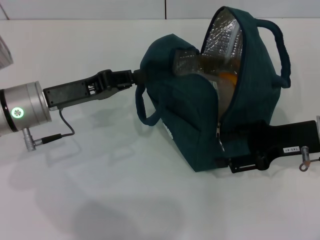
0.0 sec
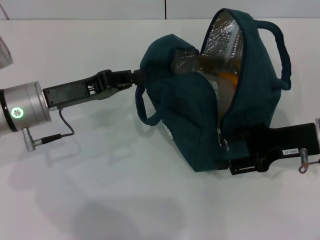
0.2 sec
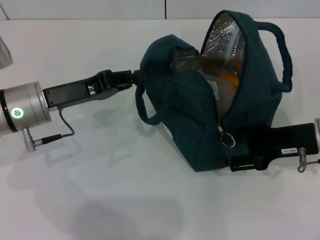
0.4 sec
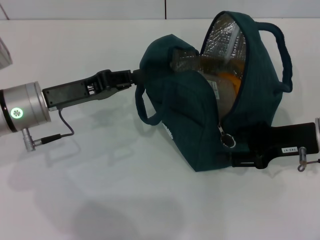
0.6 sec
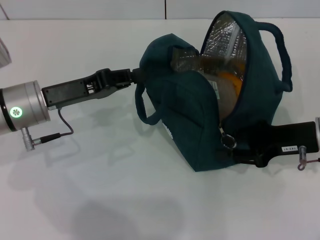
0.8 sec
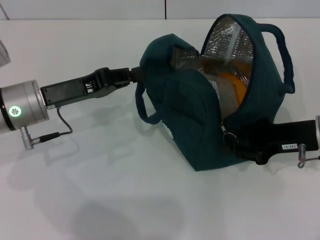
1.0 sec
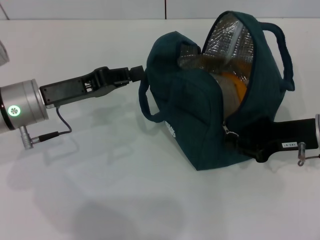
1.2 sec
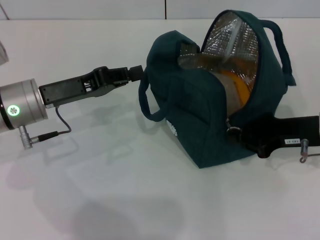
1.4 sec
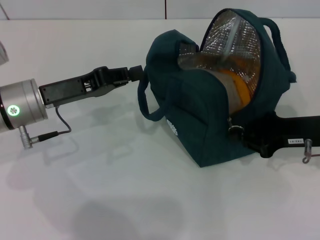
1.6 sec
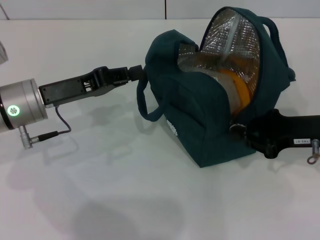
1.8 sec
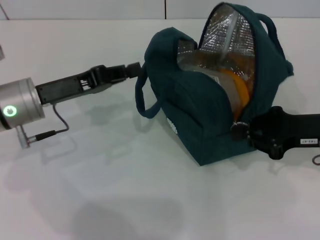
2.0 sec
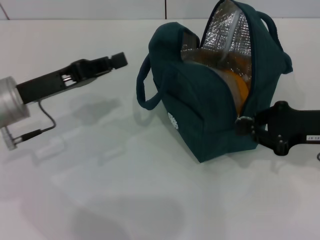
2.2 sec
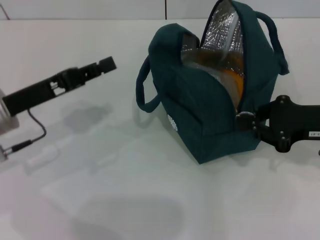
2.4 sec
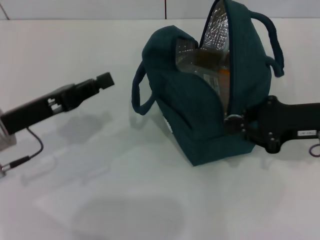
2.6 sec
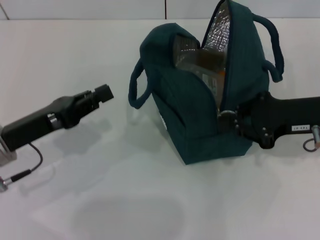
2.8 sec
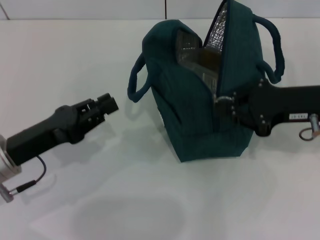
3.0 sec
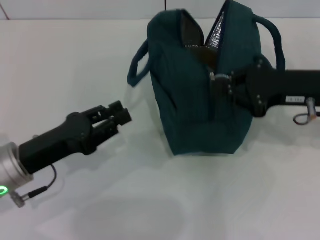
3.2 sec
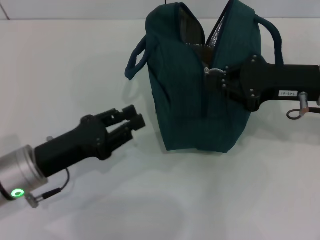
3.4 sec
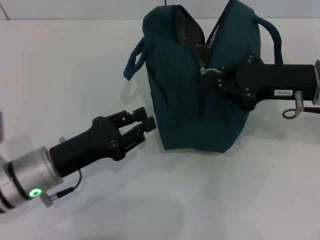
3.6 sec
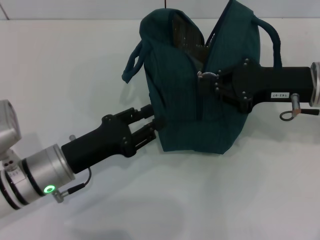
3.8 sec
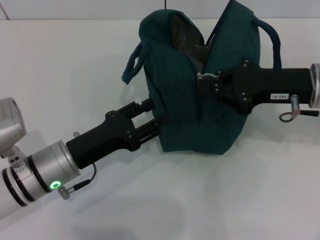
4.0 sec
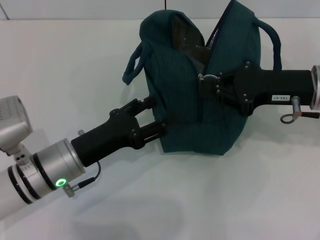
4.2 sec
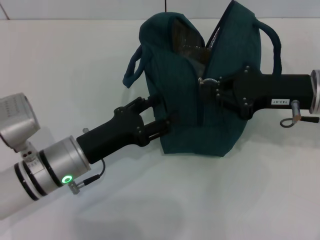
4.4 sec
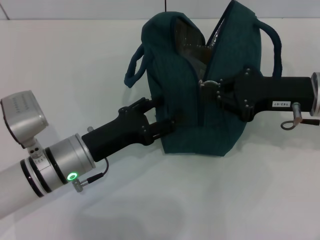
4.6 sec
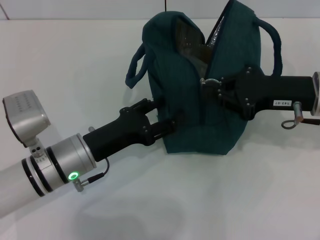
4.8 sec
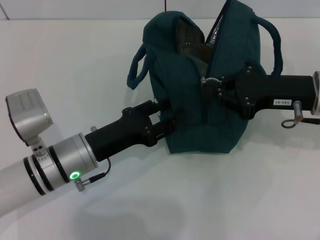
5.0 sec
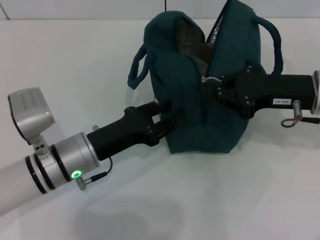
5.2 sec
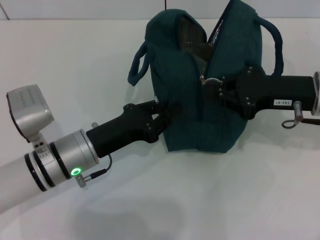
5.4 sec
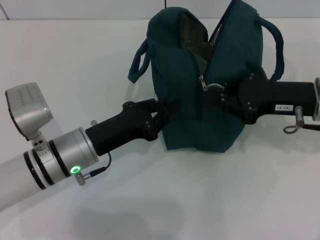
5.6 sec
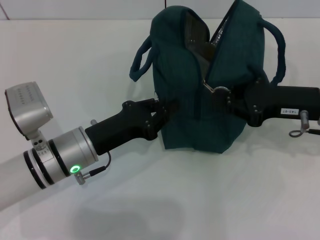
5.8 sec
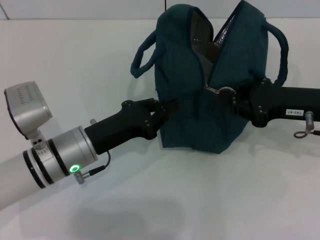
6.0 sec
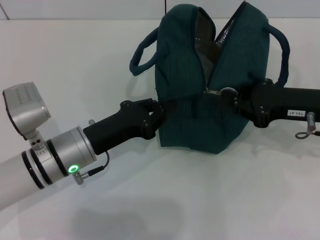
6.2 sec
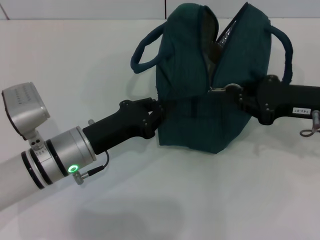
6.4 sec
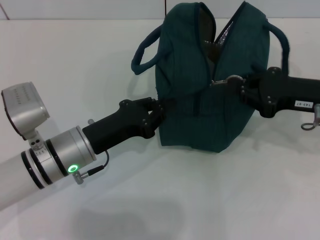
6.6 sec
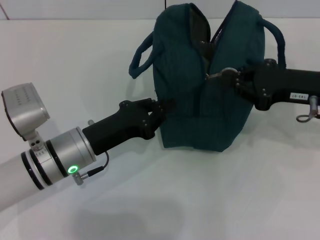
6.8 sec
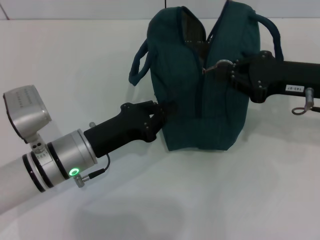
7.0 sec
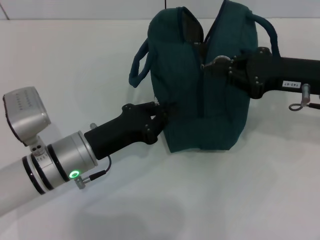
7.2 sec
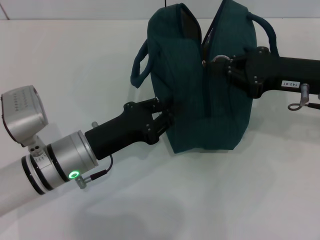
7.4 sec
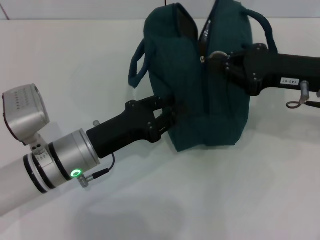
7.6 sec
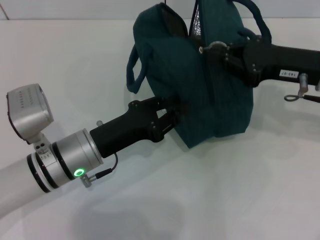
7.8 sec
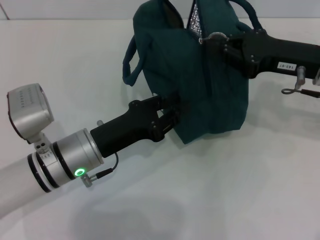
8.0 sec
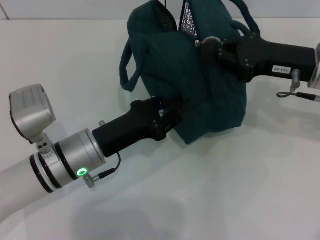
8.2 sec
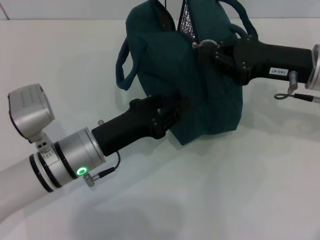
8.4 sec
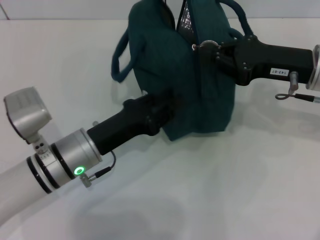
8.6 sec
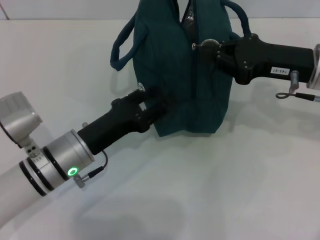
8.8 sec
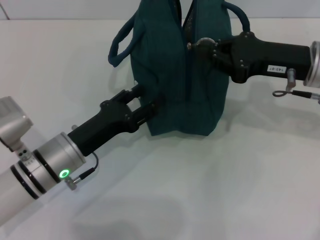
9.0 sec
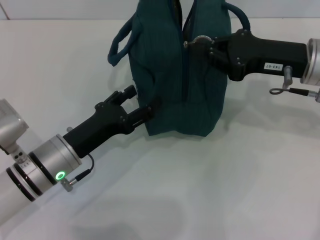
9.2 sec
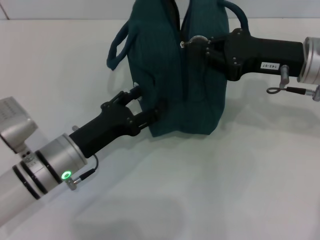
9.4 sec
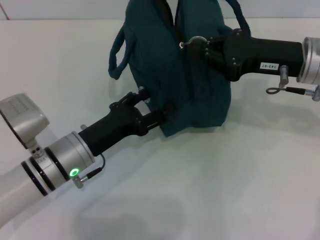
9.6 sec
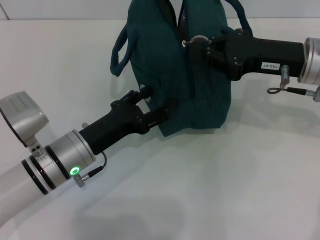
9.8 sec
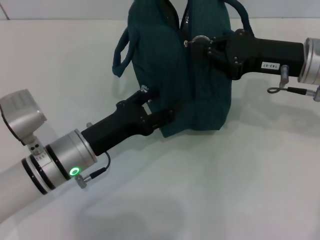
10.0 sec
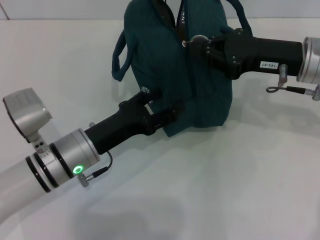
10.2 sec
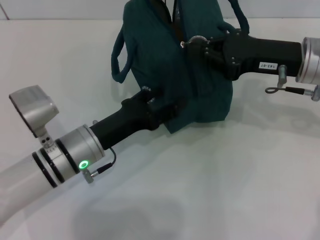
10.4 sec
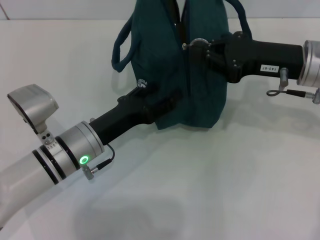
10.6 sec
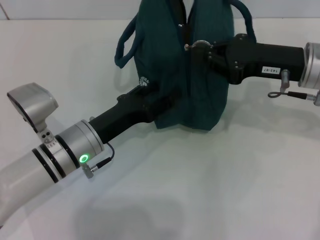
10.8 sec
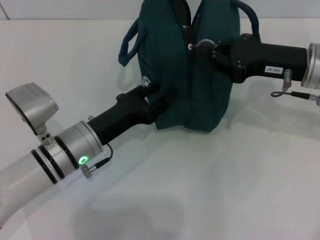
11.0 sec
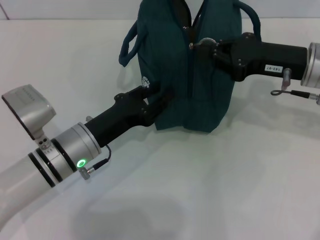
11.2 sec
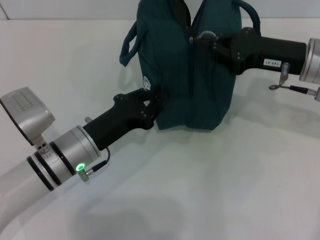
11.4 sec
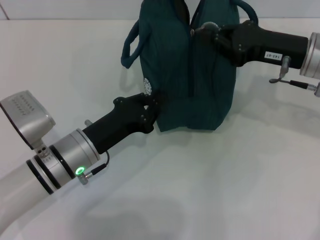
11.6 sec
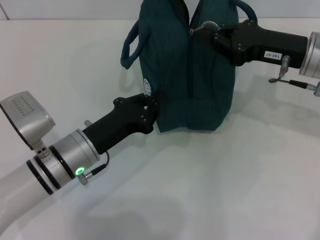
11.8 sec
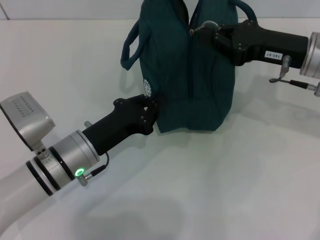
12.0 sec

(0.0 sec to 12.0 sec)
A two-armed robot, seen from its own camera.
0.0 sec - 1.6 sec: The right gripper closes its fingers.
1.6 sec - 3.0 sec: The right gripper heads upward, covering about 5 cm. The left gripper travels backward by roughly 10 cm.
3.0 sec - 4.4 sec: The left gripper moves to the right, approximately 10 cm, and opens.
4.4 sec - 6.0 sec: The left gripper closes its fingers.
6.0 sec - 7.6 sec: There are only small adjustments of the grippers.
7.6 sec - 9.0 sec: The left gripper opens its fingers.
9.0 sec - 10.4 sec: The left gripper opens.
10.4 sec - 12.0 sec: The left gripper closes up.

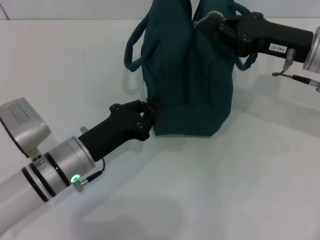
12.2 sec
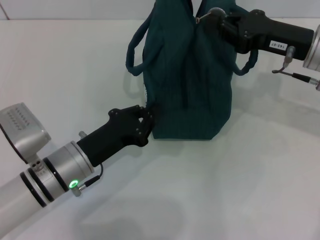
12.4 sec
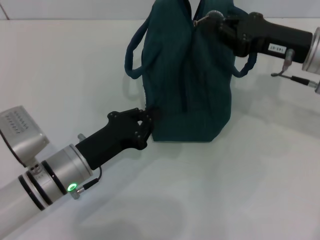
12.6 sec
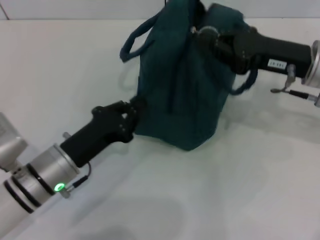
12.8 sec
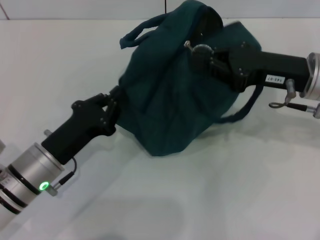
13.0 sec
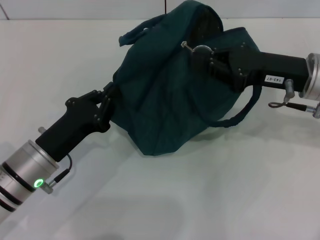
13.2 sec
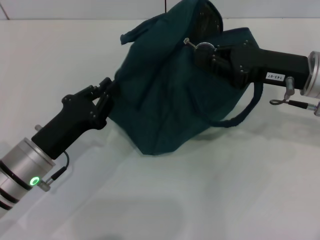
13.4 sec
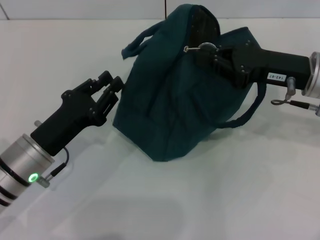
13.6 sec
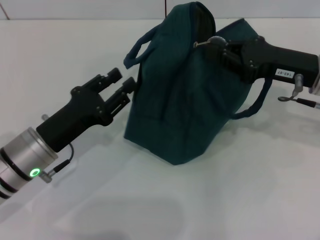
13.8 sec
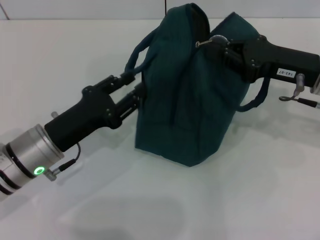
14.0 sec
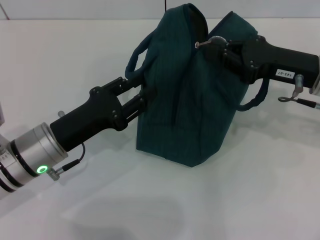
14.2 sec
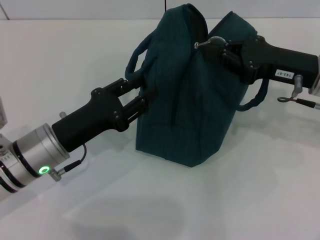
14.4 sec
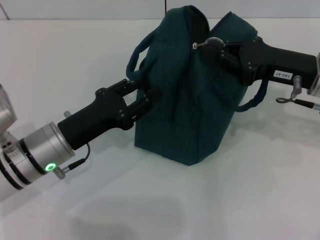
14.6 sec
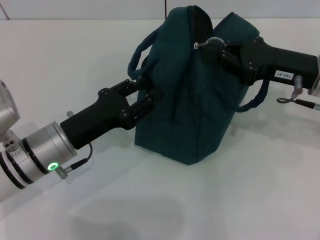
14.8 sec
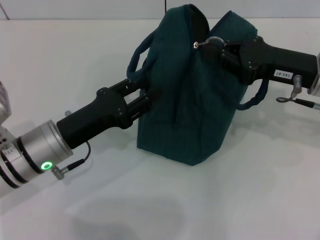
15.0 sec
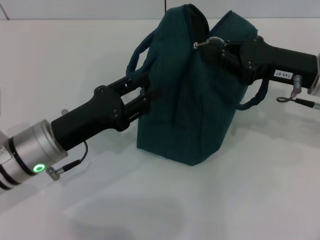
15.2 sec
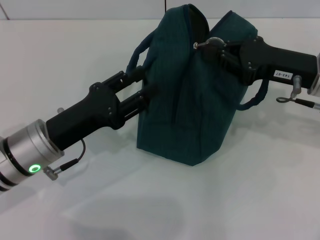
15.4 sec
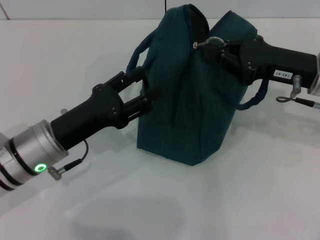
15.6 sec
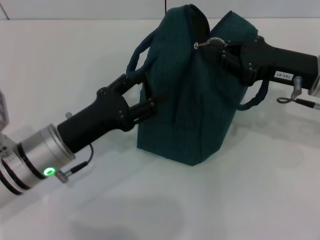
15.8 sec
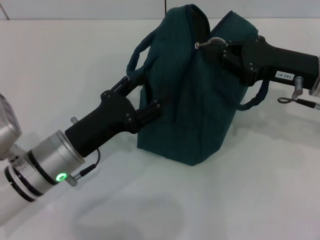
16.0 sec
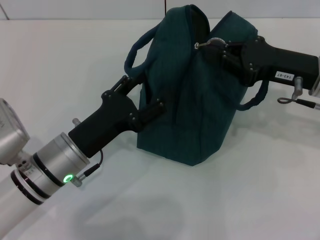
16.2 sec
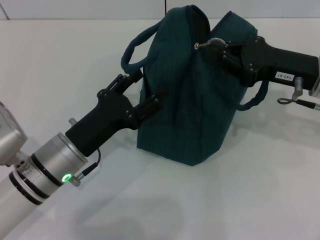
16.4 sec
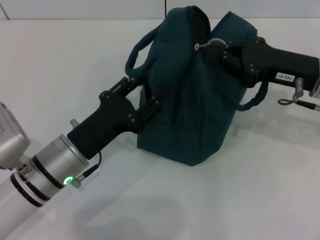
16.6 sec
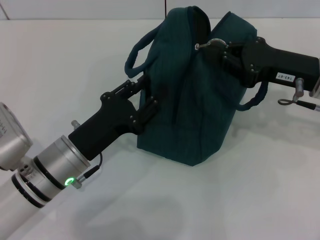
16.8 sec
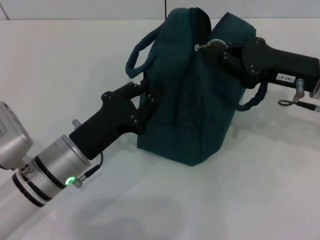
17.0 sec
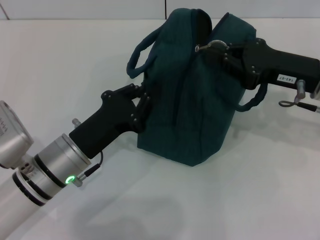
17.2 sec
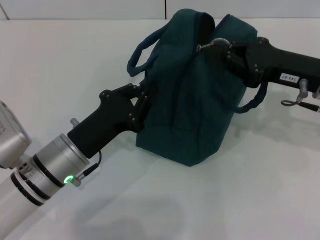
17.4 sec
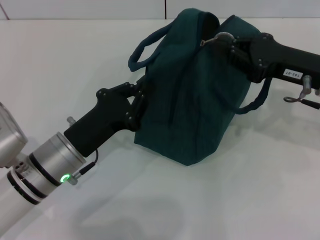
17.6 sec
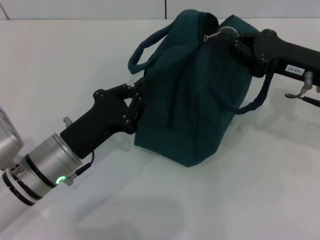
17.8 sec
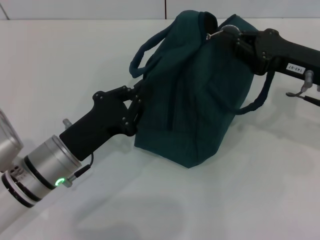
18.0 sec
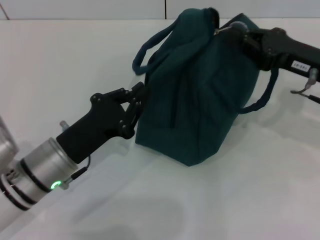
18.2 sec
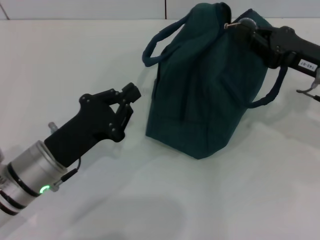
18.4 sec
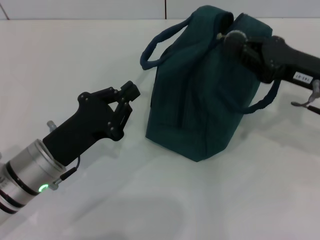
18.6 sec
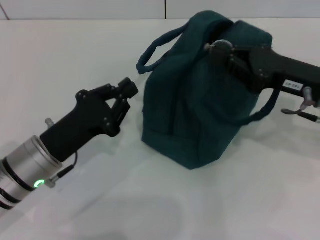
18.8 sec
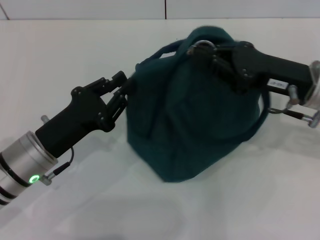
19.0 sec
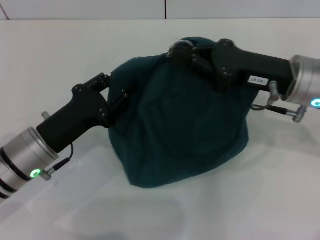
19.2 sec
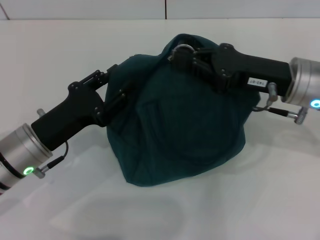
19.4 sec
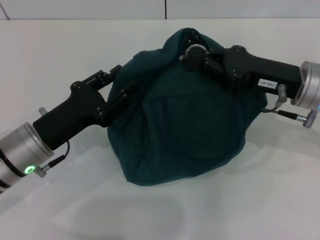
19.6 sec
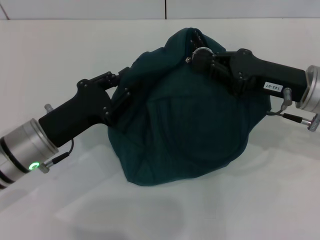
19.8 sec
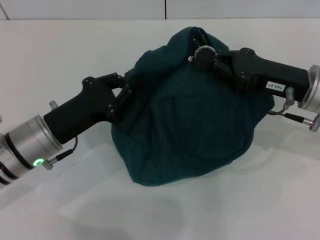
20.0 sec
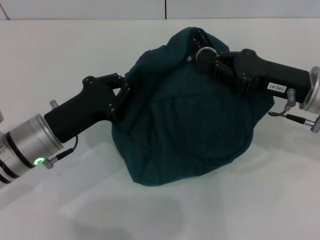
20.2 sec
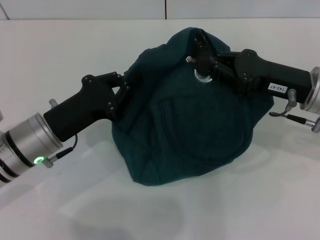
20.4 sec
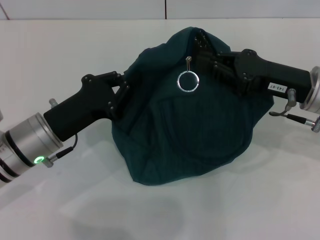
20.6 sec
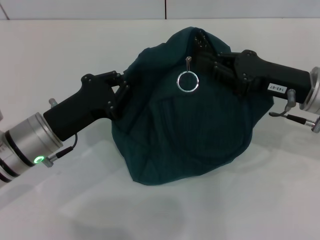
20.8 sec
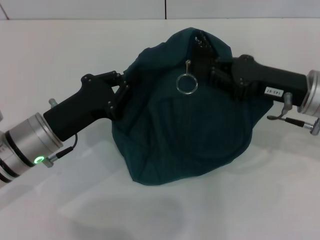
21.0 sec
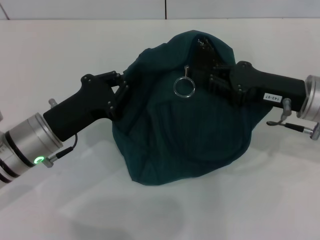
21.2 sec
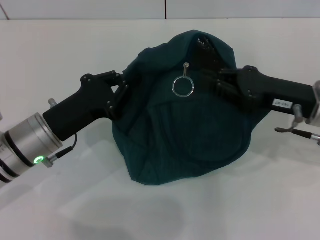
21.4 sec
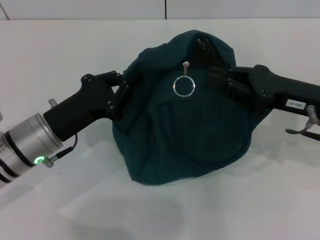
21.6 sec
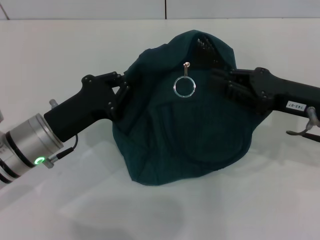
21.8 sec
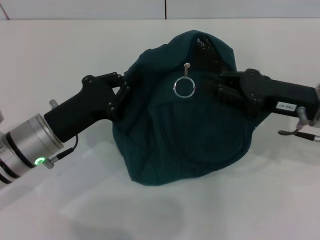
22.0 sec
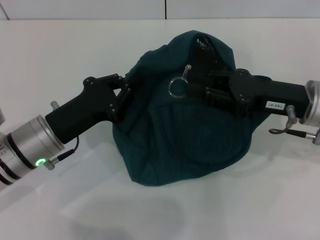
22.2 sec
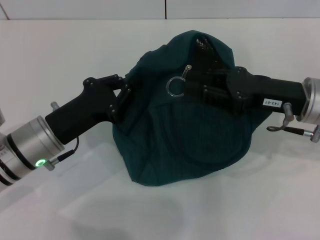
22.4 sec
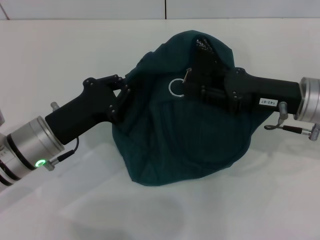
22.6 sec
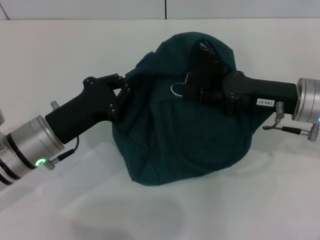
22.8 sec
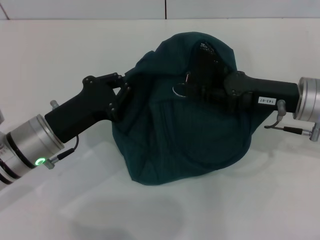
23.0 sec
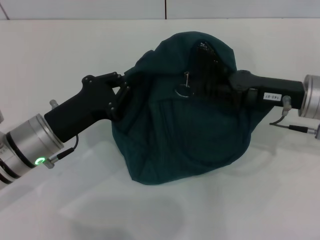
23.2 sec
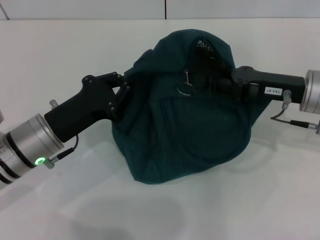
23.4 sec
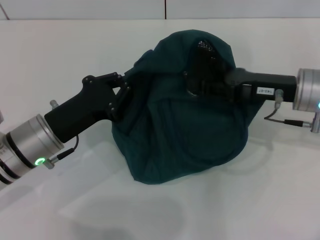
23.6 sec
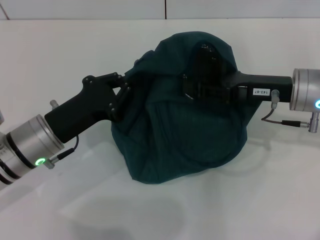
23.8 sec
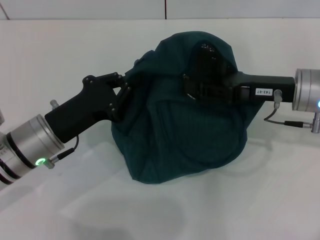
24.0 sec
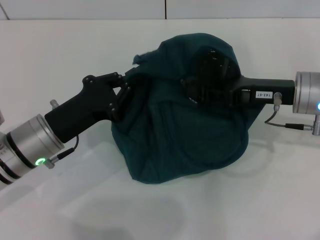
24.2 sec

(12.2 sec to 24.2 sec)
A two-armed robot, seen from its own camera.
12.2 sec - 13.8 sec: The left gripper shifts by about 5 cm.
13.8 sec - 16.6 sec: The grippers make only small movements.
16.6 sec - 18.2 sec: The left gripper closes its fingers.
18.2 sec - 19.8 sec: The left gripper opens.
19.8 sec - 21.2 sec: The left gripper closes up.
21.2 sec - 24.2 sec: The grippers make only small movements.
